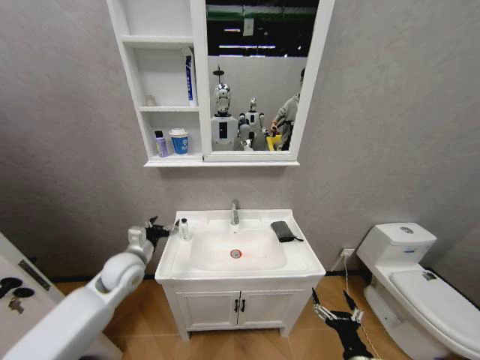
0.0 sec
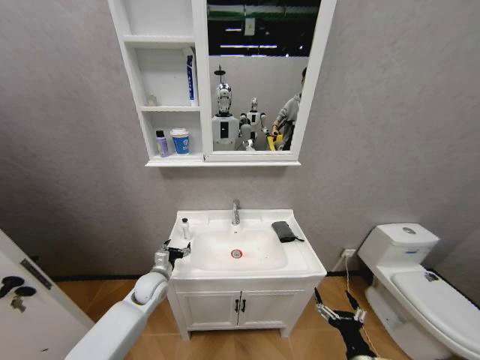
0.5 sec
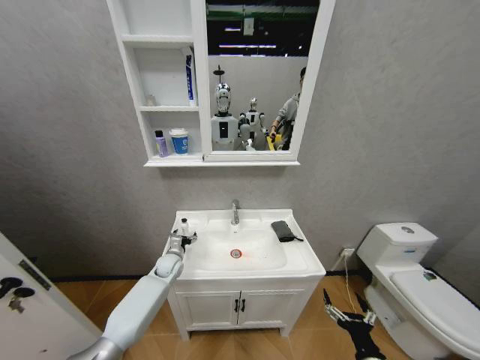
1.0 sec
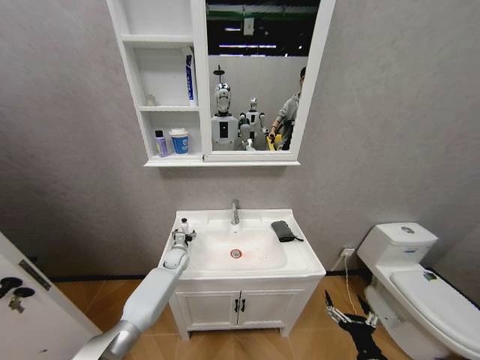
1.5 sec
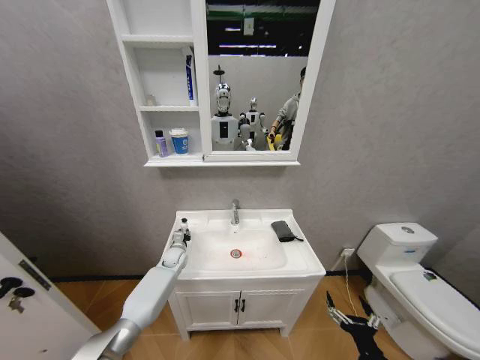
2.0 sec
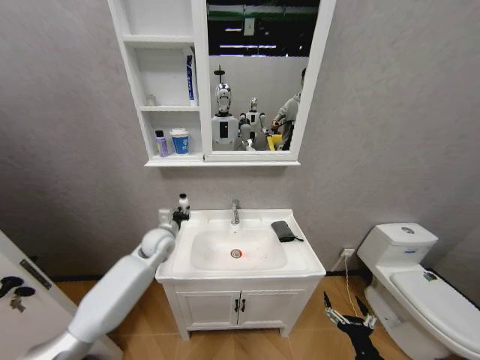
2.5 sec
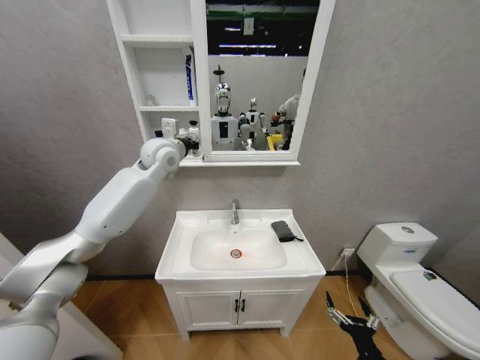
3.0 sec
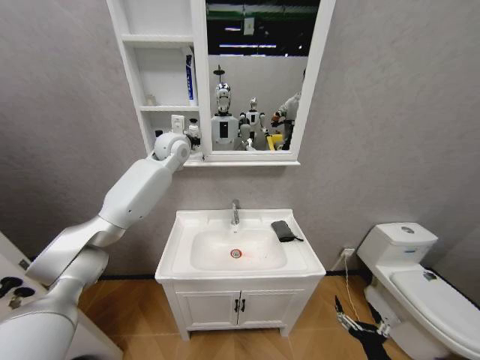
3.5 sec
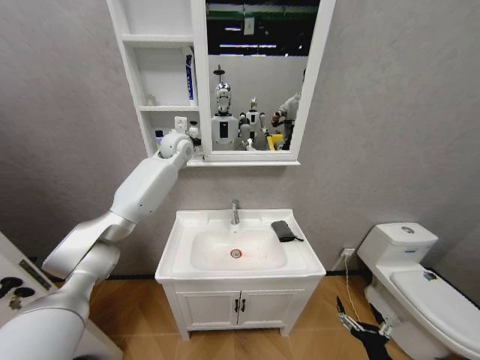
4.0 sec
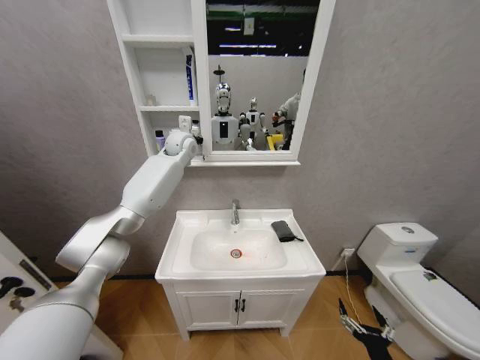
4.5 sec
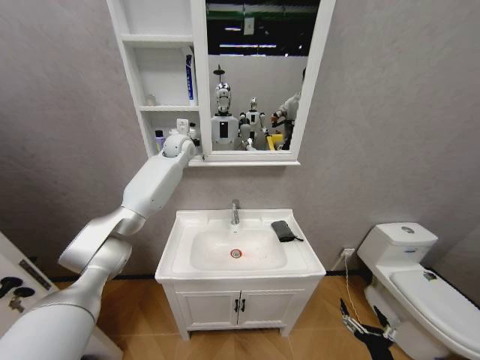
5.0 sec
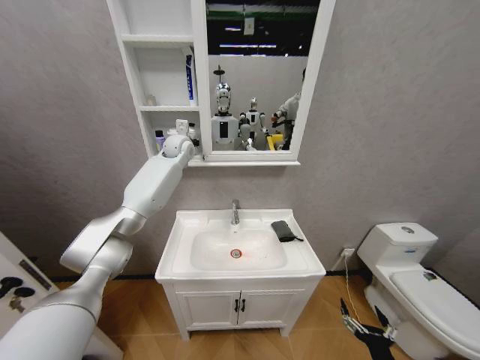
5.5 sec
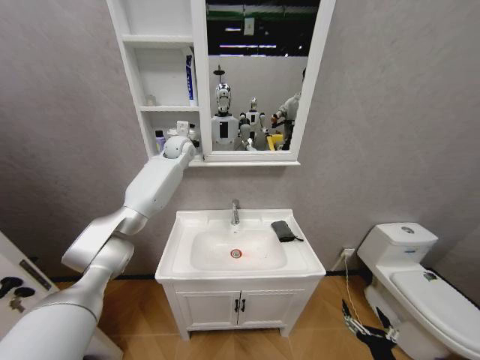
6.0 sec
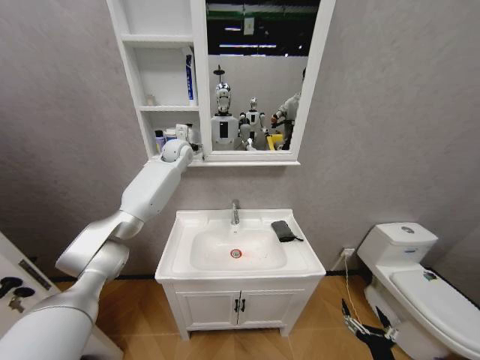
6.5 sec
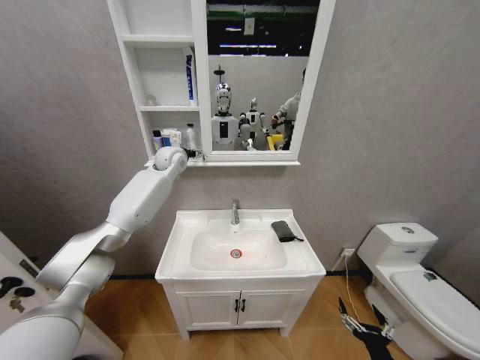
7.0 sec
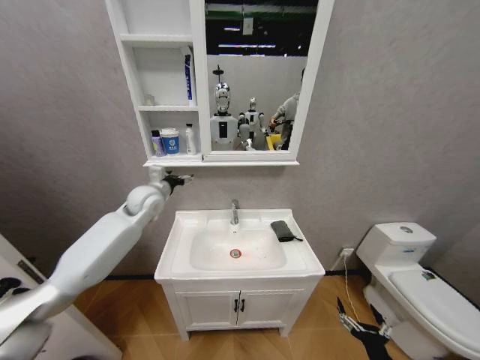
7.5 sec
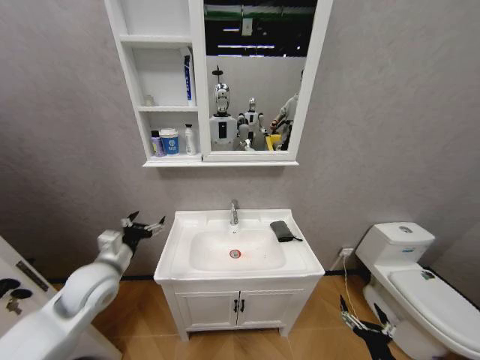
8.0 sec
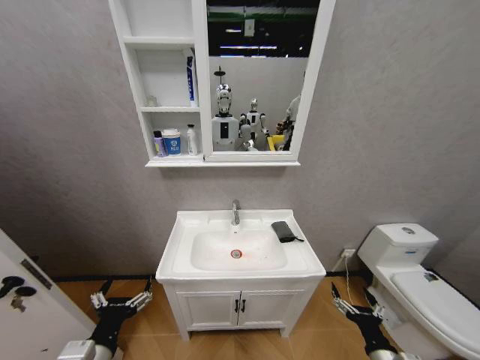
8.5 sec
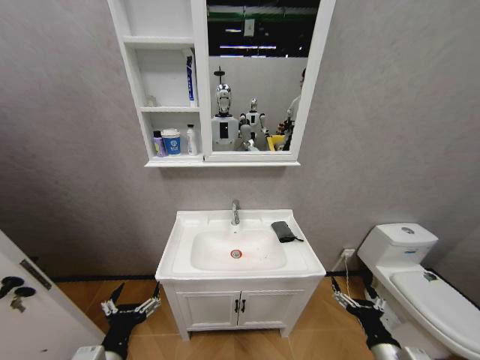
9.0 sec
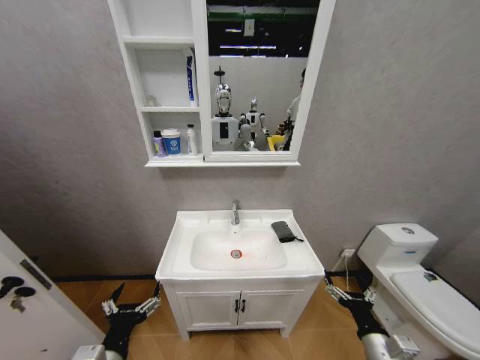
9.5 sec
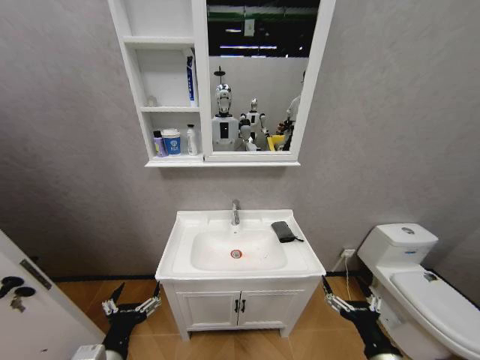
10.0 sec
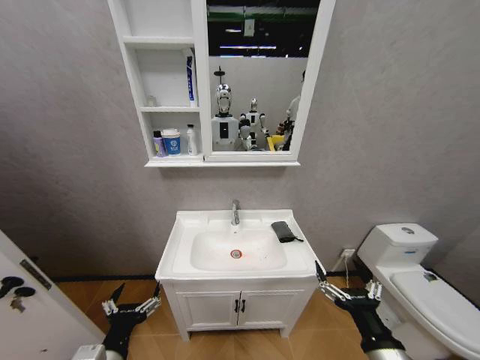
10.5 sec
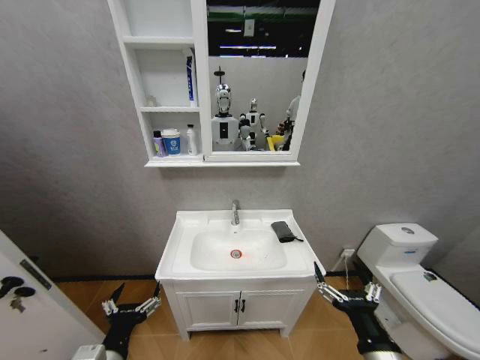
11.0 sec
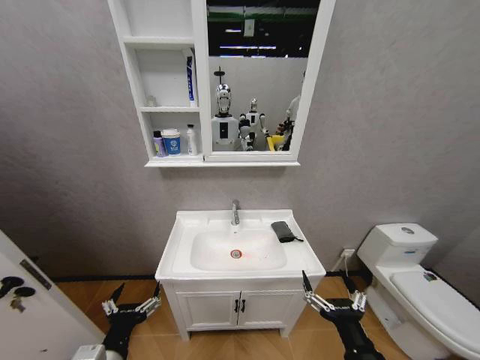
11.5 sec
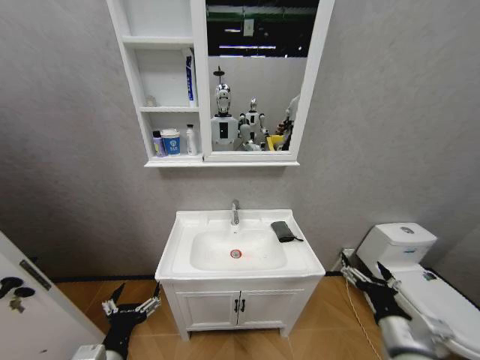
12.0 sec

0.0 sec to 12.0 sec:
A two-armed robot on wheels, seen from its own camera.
Task of the whole recording: Move facial cleanser and shampoo from washbasin to cabinet, then wipe washbasin with towel.
0.0 sec to 2.0 sec: The left gripper goes approximately 25 cm downward and forward, and closes up.
2.0 sec to 4.0 sec: The left gripper heads upward, covering about 40 cm.
4.0 sec to 6.0 sec: The grippers move only a little.
6.0 sec to 8.0 sec: The left gripper travels backward, downward and to the left by roughly 40 cm, and opens.
8.0 sec to 10.0 sec: The left gripper moves backward, some 20 cm. Meanwhile the right gripper moves upward, roughly 10 cm.
10.0 sec to 12.0 sec: The right gripper heads forward and upward, covering approximately 10 cm, and travels to the left and back again, about 10 cm each way.

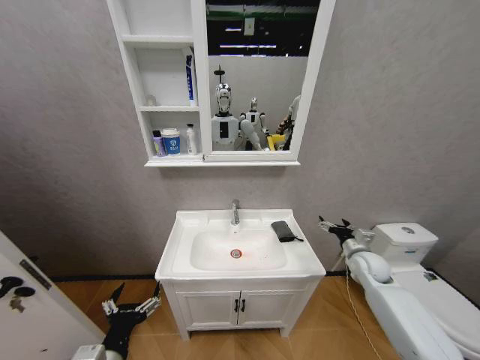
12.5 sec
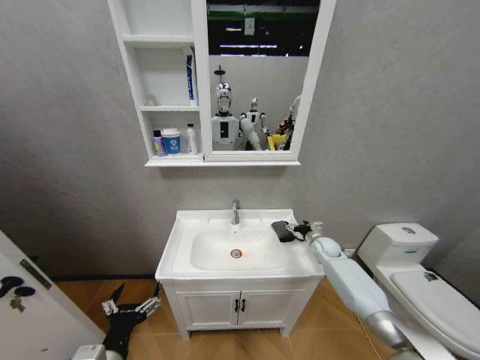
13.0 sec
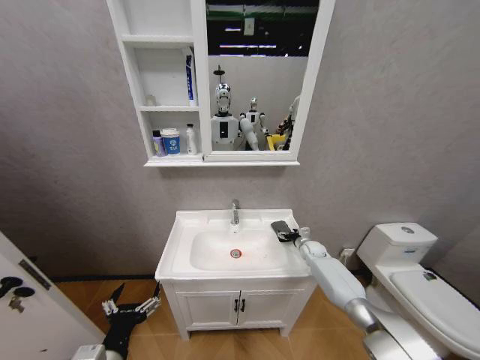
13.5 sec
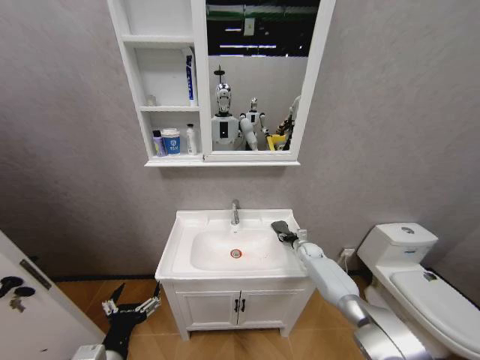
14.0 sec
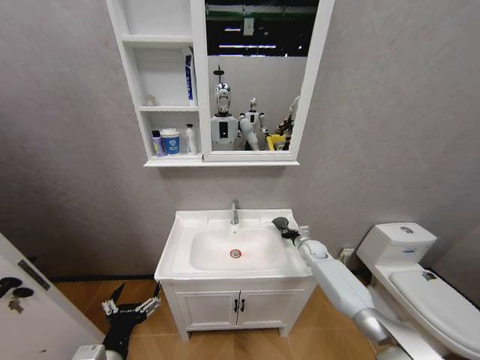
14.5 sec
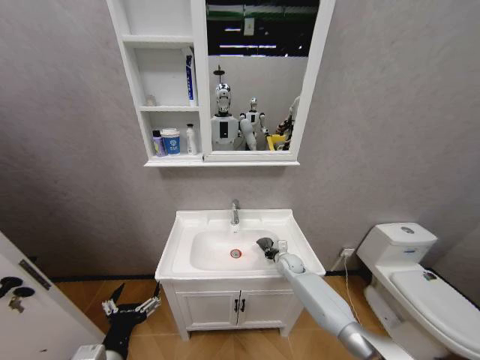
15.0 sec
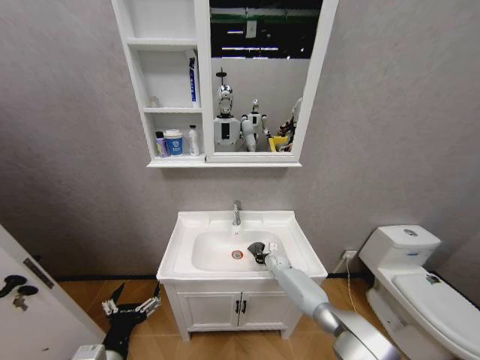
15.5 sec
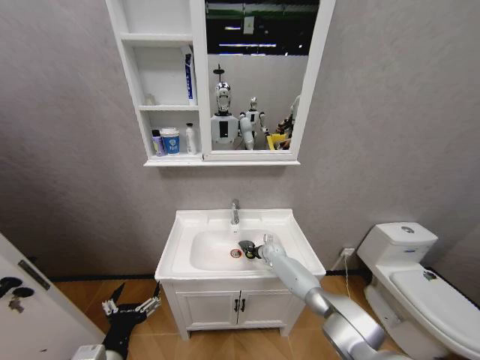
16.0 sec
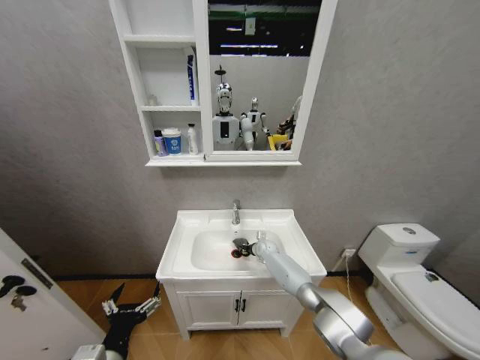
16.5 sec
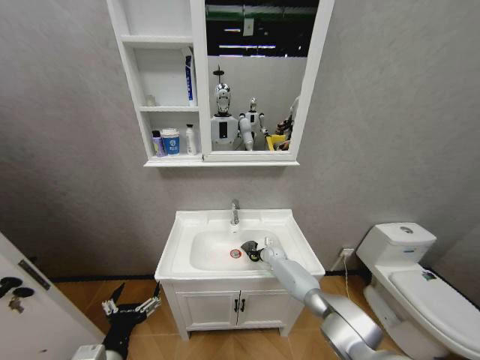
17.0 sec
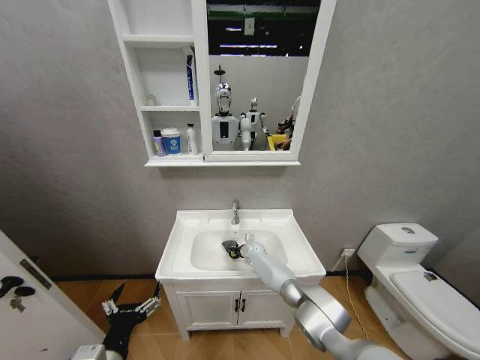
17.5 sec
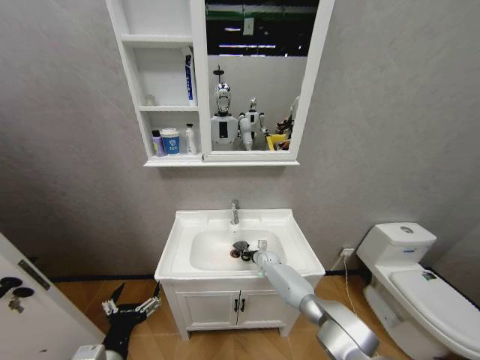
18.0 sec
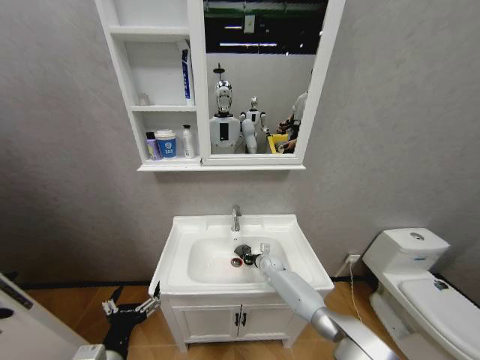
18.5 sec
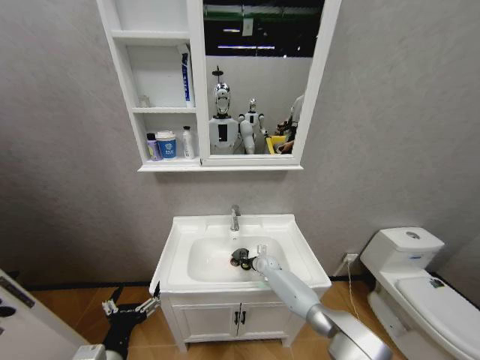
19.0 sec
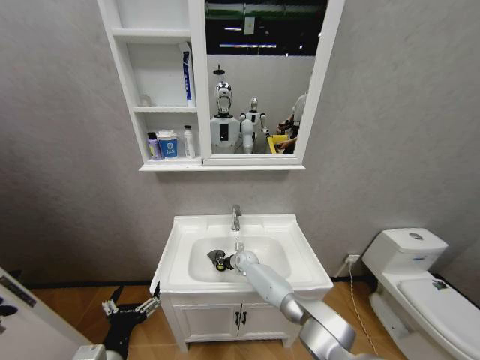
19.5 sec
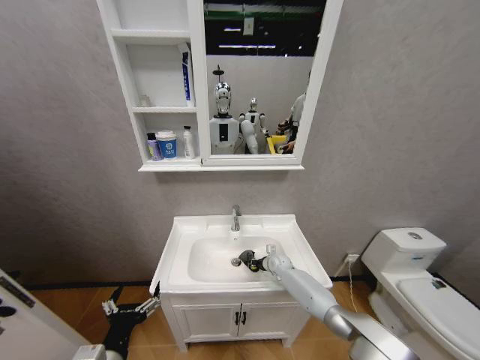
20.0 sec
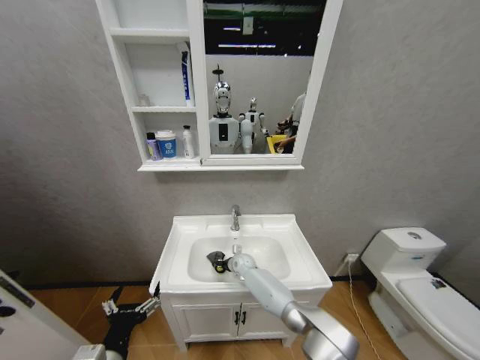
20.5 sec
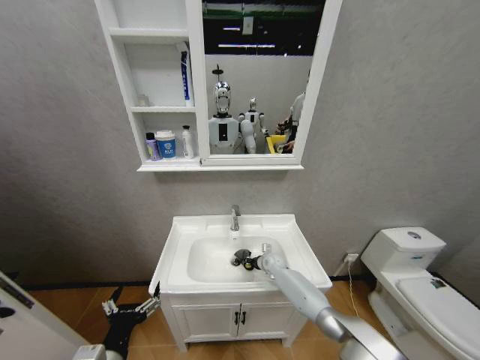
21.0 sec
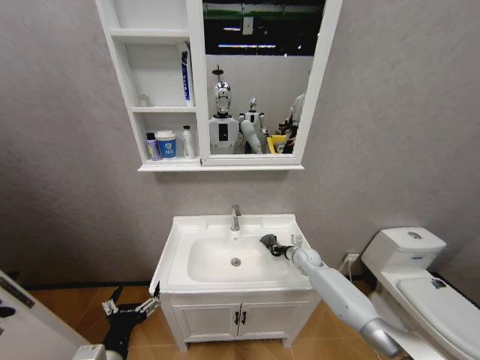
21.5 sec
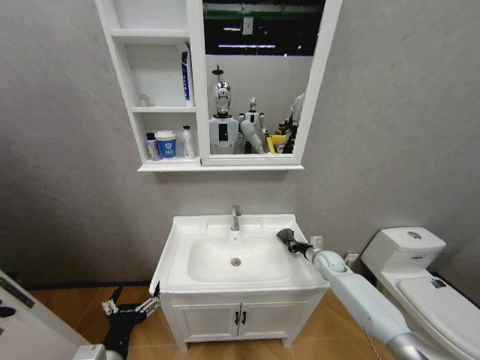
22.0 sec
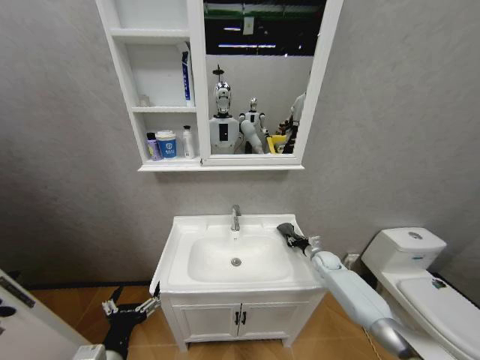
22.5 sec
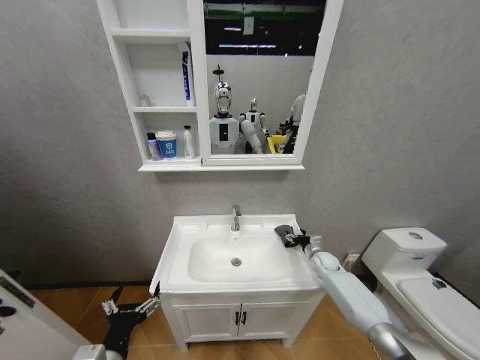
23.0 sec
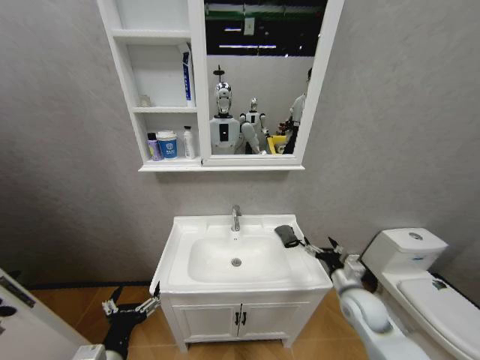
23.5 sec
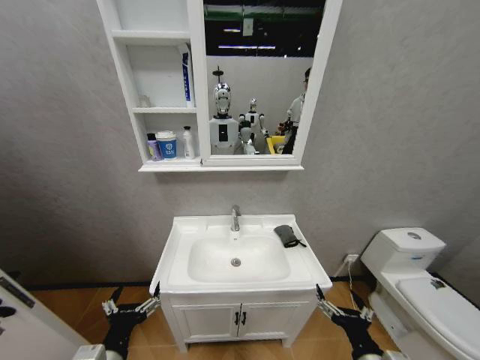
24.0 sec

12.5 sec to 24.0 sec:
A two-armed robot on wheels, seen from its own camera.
Task of the whole recording: Move facial cleanser and shampoo from washbasin to cabinet, then wipe washbasin with towel.
12.5 sec to 14.5 sec: The right gripper heads forward, downward and to the left, covering roughly 20 cm, and closes.
14.5 sec to 16.5 sec: The right gripper shifts some 20 cm to the left.
16.5 sec to 18.5 sec: The right gripper heads backward, covering roughly 5 cm, and moves roughly 5 cm to the left and comes back.
18.5 sec to 20.0 sec: The right gripper moves approximately 10 cm to the left and comes back.
20.0 sec to 22.0 sec: The right gripper shifts approximately 20 cm to the right and upward.
22.0 sec to 24.0 sec: The right gripper is displaced backward by about 40 cm, and opens.

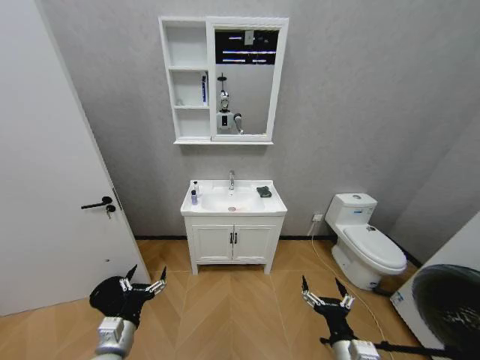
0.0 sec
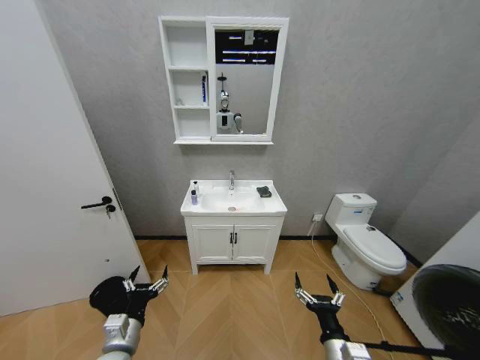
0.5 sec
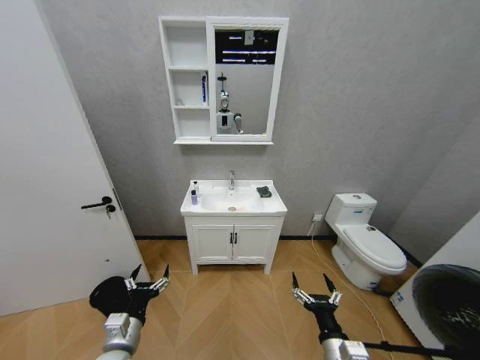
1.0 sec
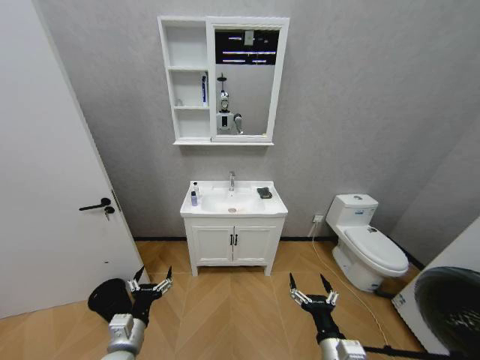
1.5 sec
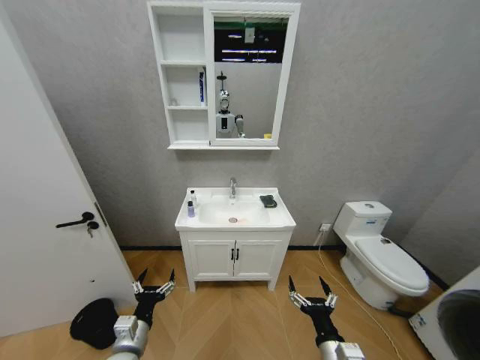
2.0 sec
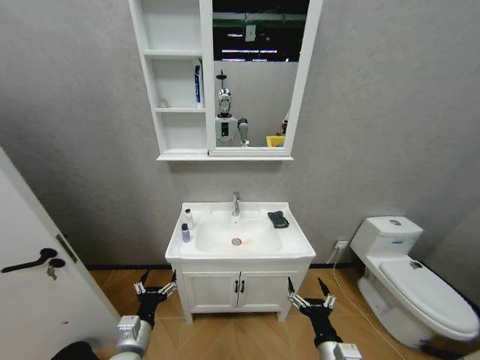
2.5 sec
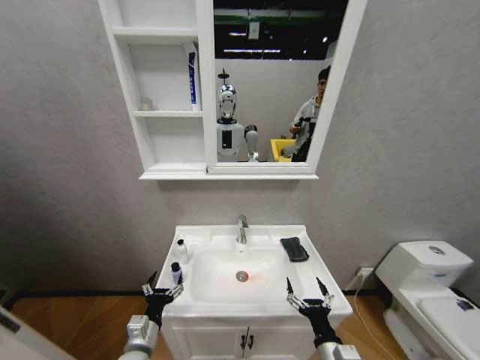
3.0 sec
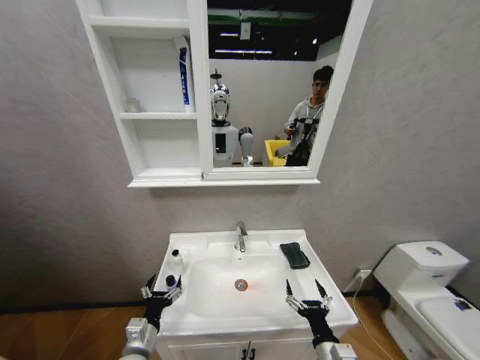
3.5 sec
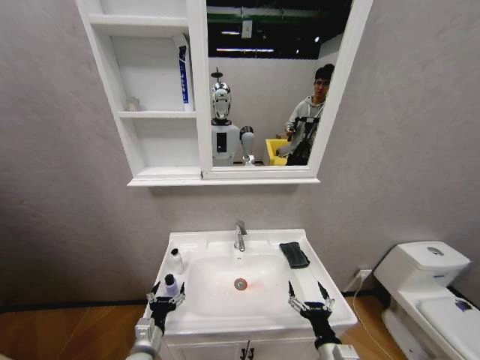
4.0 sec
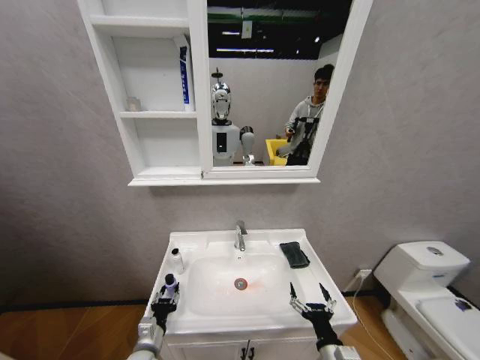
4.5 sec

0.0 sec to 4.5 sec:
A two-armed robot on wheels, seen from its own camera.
Task of the whole recording: Move facial cleanser and shampoo from washbasin to cabinet, then wipe washbasin with towel.
2.0 sec to 4.5 sec: The left gripper is displaced downward by approximately 10 cm, and closes its fingers.
